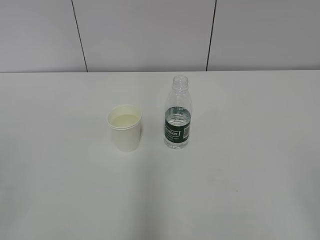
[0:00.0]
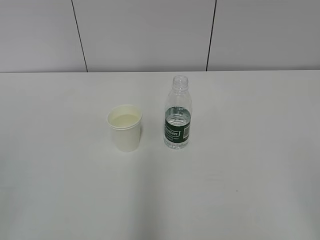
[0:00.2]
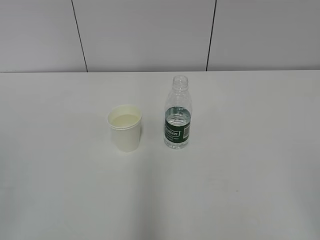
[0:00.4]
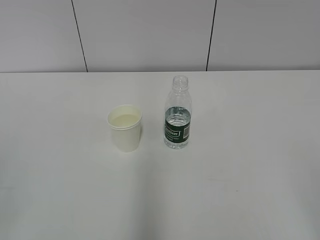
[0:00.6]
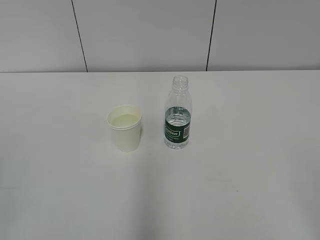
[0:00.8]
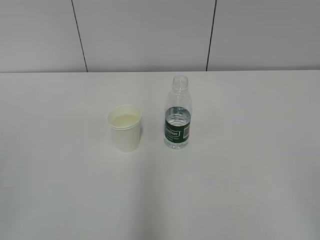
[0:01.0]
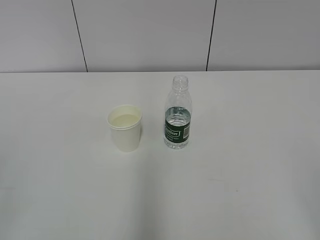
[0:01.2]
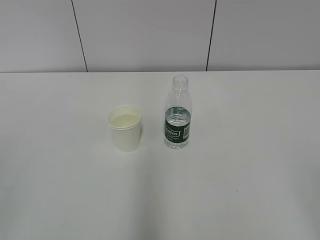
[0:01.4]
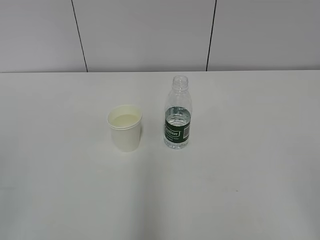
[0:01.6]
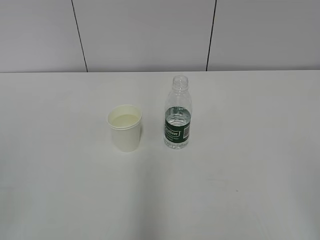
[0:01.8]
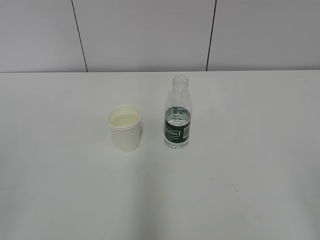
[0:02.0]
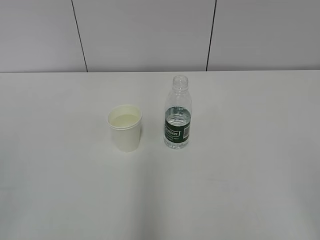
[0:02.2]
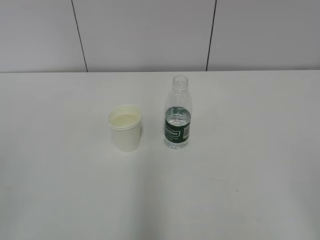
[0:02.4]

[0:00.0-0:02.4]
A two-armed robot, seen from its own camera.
0:00.0 to 0:02.4: Both grippers stay put.

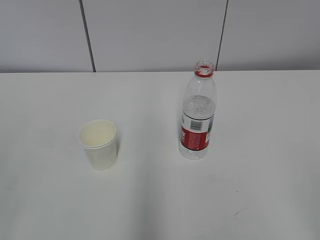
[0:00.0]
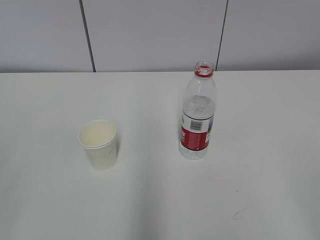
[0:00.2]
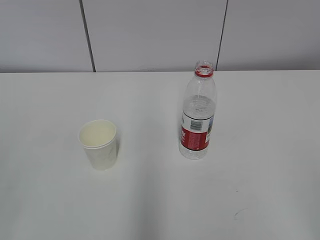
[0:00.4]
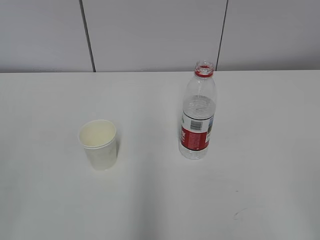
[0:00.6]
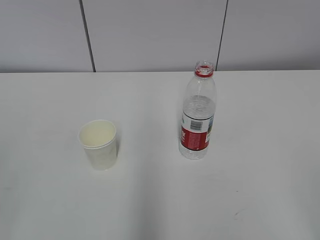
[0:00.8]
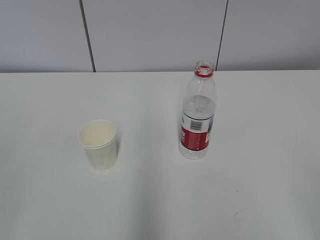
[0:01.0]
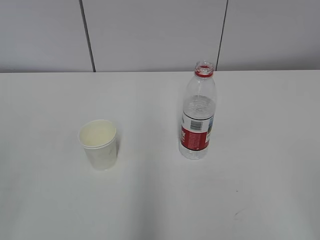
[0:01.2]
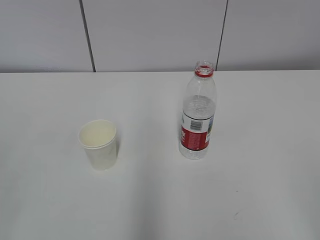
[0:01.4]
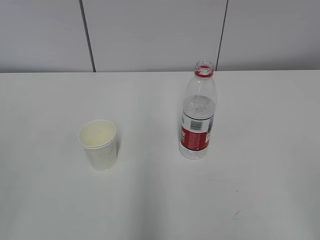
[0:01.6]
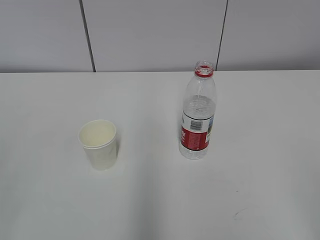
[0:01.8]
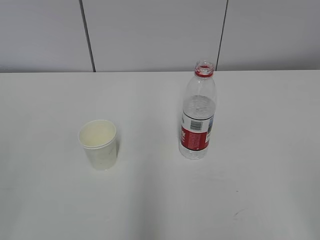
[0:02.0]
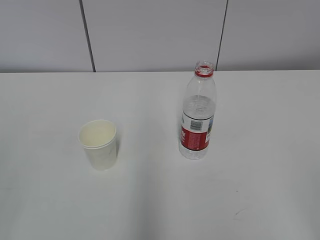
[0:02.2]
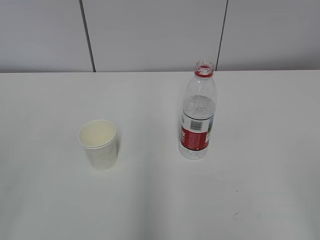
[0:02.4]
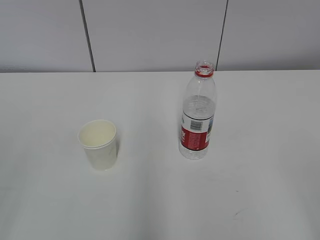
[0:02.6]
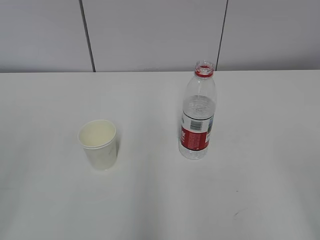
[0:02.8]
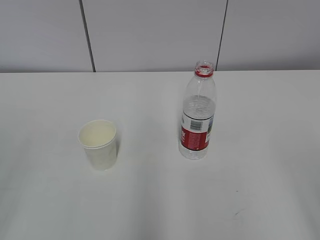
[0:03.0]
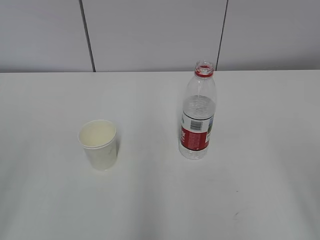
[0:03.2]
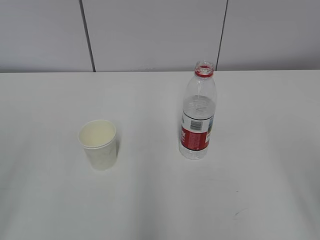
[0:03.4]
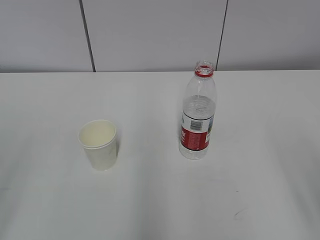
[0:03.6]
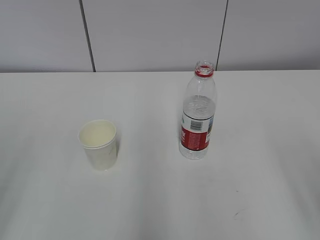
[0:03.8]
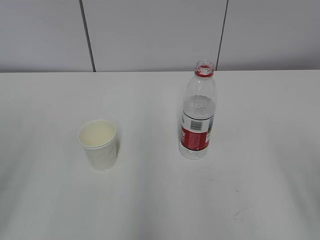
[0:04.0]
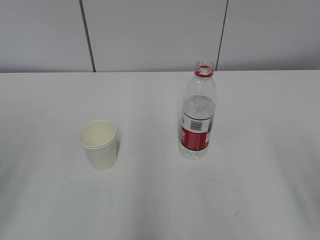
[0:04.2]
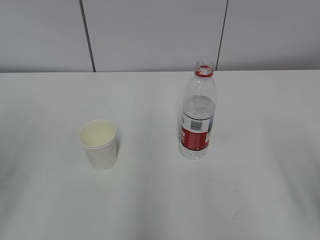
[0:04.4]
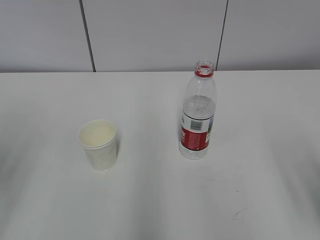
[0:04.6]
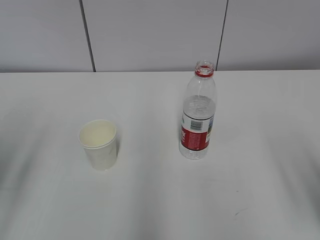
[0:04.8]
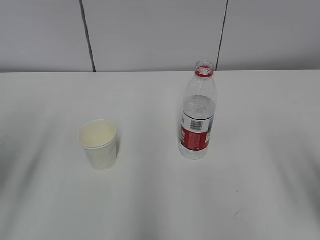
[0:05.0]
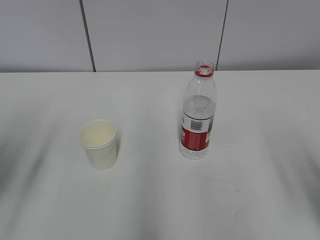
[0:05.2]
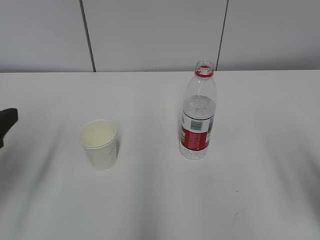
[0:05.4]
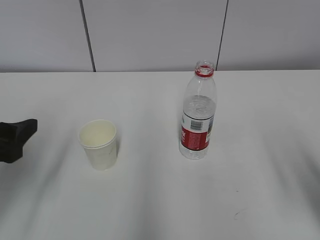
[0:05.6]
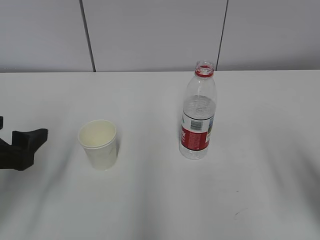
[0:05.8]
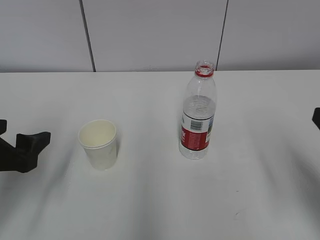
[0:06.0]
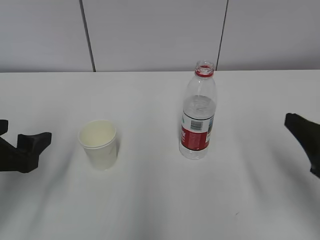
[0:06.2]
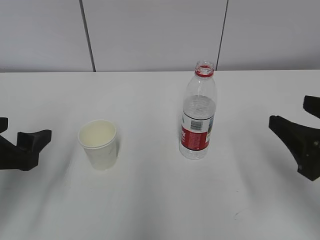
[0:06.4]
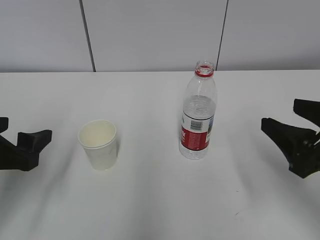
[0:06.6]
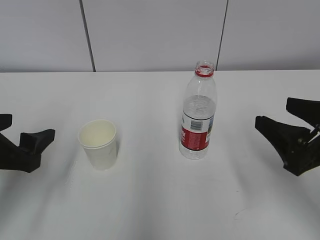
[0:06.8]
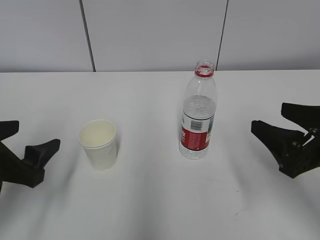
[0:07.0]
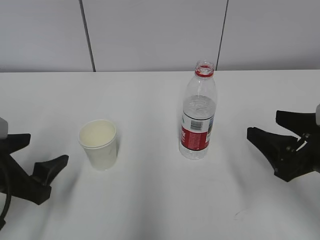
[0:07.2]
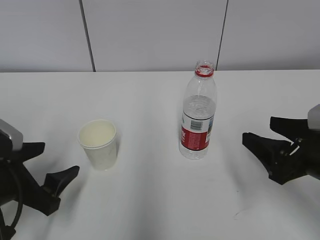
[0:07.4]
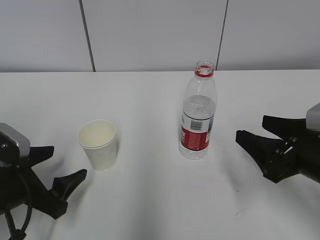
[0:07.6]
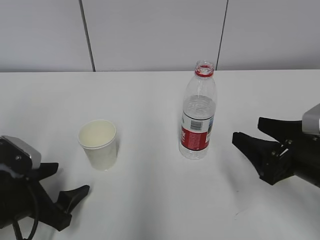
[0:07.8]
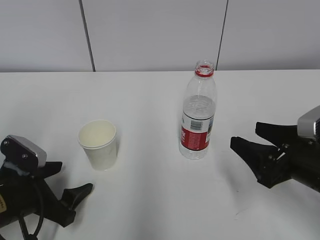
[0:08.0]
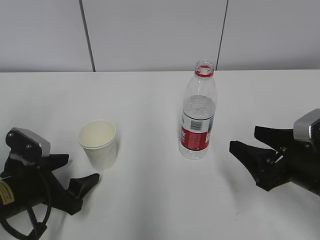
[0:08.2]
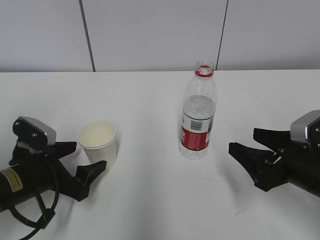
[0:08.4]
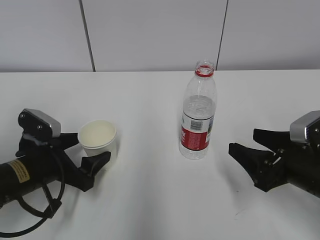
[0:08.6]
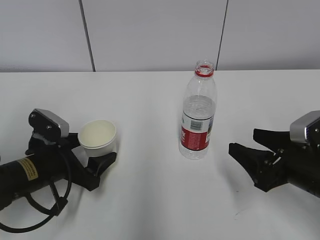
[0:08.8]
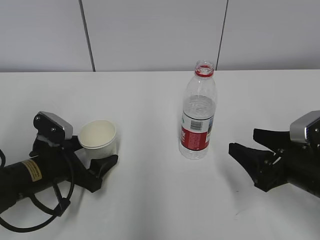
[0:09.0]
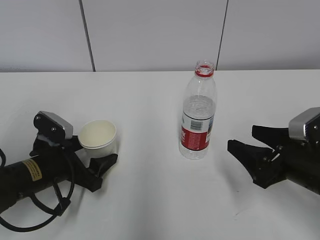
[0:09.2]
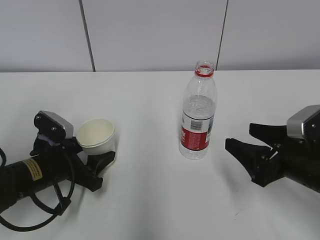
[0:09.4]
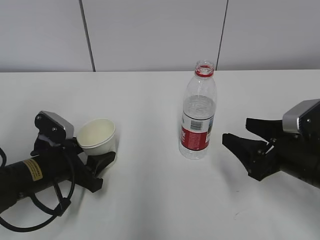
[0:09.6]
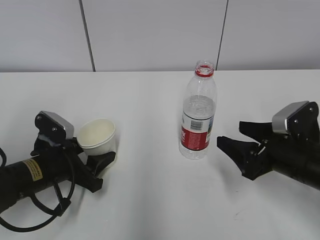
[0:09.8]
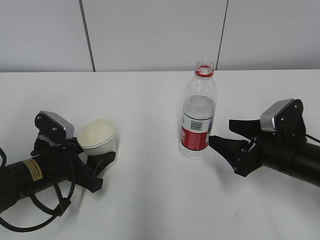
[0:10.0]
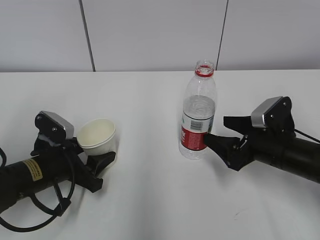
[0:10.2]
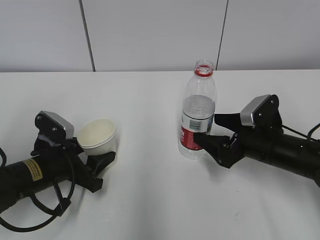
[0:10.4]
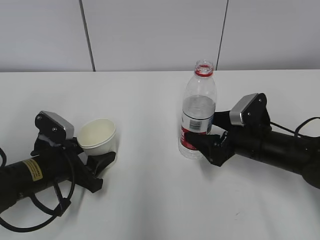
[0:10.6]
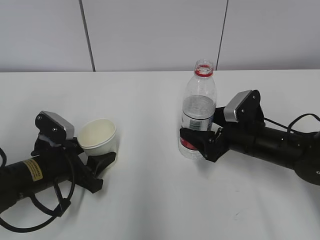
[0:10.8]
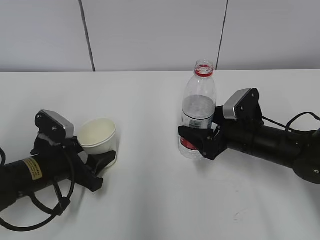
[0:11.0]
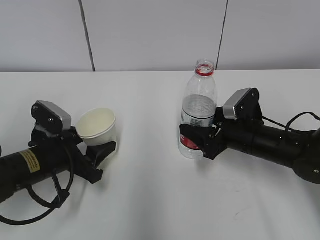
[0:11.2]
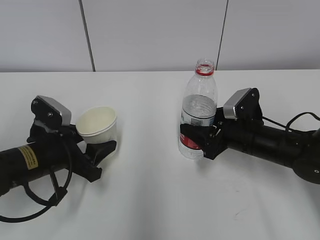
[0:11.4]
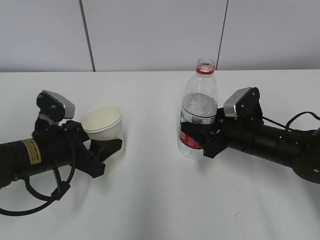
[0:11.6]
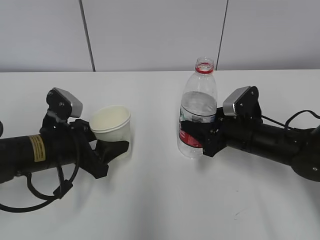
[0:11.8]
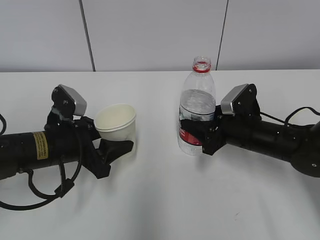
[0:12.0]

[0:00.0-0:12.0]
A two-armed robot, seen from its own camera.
Step, 0:00.0 to 0:07.8: Grab the paper cup with the left hand.
Step, 0:08.0 to 0:09.6: Grab the water bottle with the right hand.
0:04.4 to 0:06.0: The left gripper goes about 15 cm downward, forward and to the right, and opens up, while the right gripper moves forward, approximately 5 cm.
0:06.0 to 0:07.6: The right gripper moves downward and forward, about 10 cm. Meanwhile the left gripper moves downward, roughly 5 cm.
0:07.6 to 0:09.0: The left gripper heads forward, covering roughly 5 cm.
0:09.0 to 0:10.4: The left gripper closes its fingers. Meanwhile the right gripper moves forward, about 10 cm.
0:10.4 to 0:12.0: The left gripper shifts by about 5 cm. The right gripper closes up.

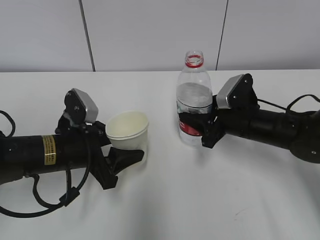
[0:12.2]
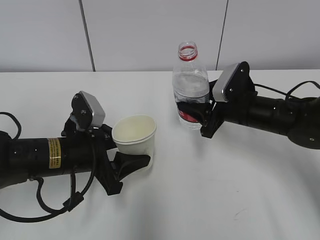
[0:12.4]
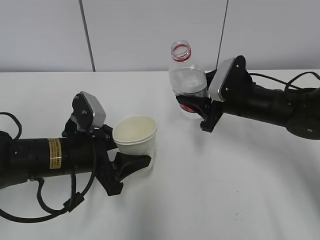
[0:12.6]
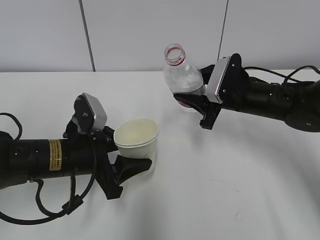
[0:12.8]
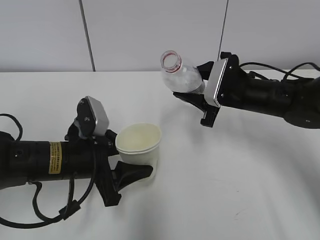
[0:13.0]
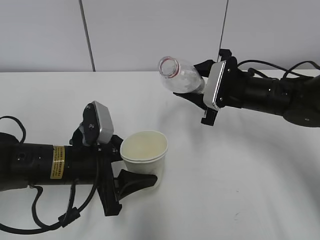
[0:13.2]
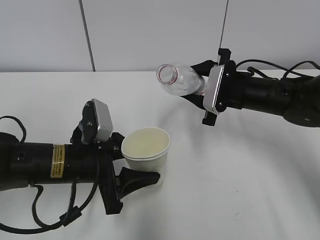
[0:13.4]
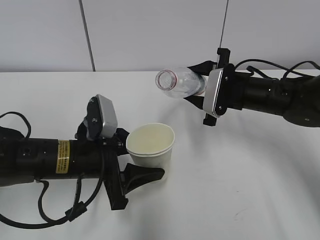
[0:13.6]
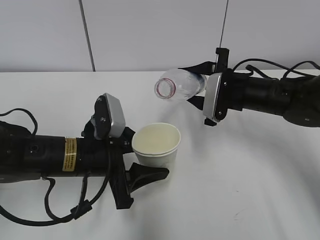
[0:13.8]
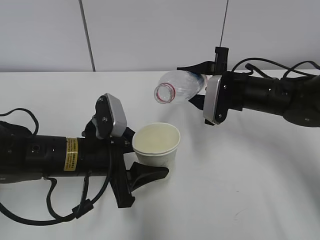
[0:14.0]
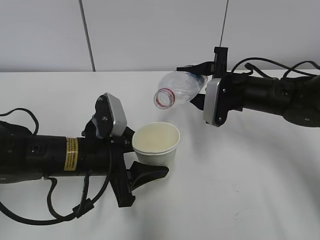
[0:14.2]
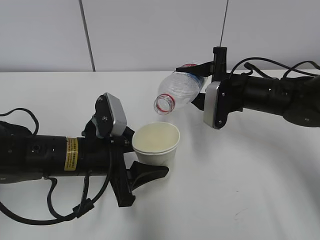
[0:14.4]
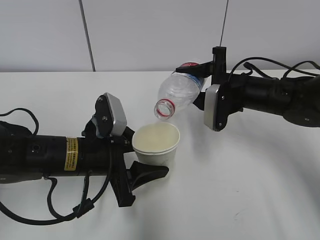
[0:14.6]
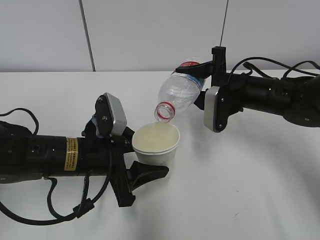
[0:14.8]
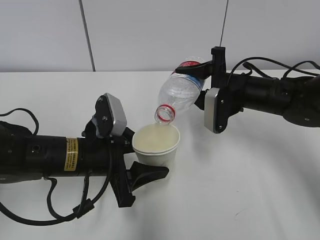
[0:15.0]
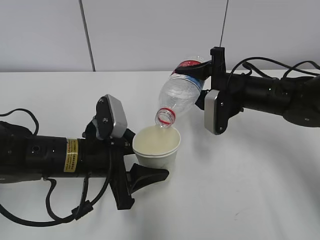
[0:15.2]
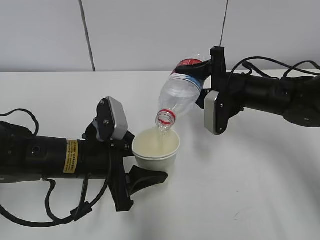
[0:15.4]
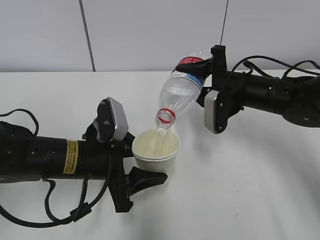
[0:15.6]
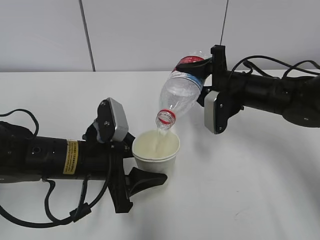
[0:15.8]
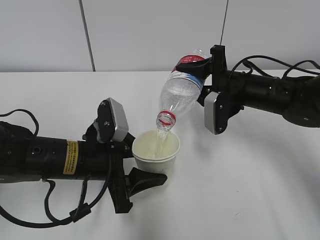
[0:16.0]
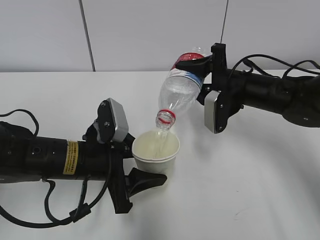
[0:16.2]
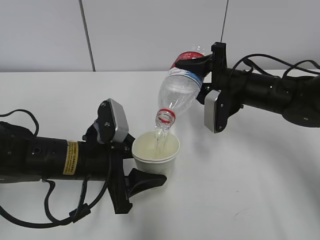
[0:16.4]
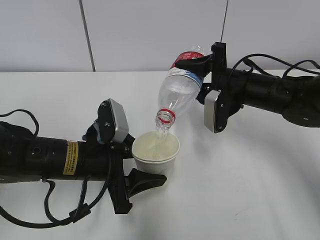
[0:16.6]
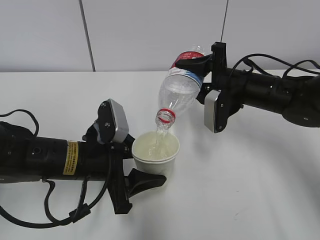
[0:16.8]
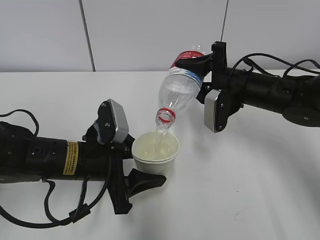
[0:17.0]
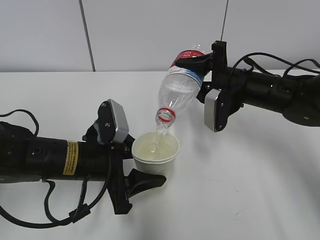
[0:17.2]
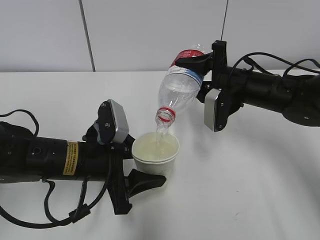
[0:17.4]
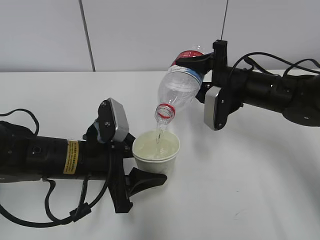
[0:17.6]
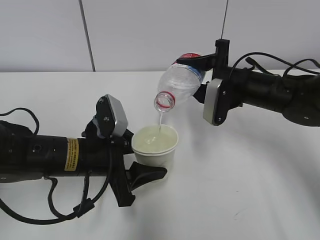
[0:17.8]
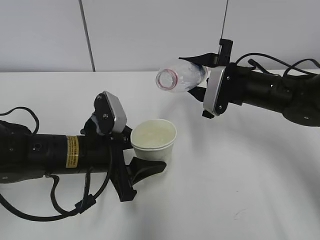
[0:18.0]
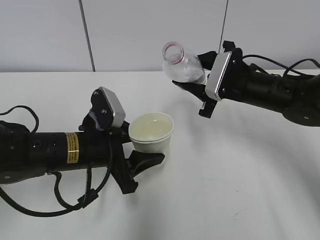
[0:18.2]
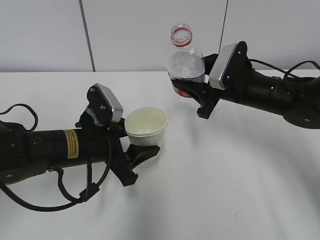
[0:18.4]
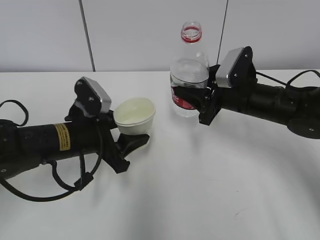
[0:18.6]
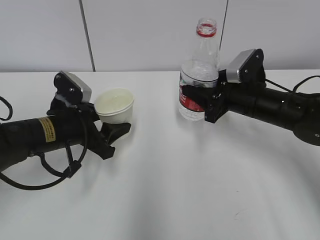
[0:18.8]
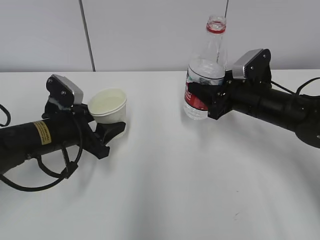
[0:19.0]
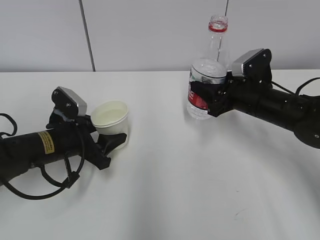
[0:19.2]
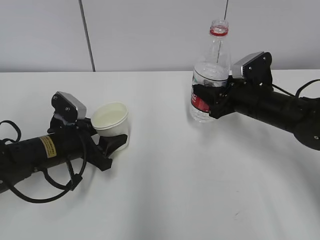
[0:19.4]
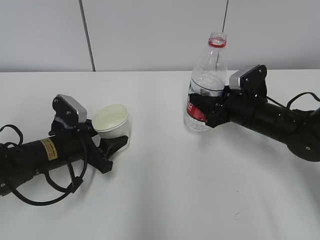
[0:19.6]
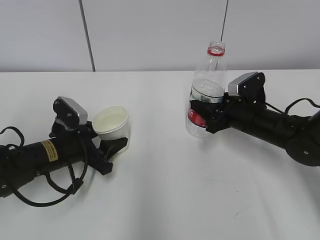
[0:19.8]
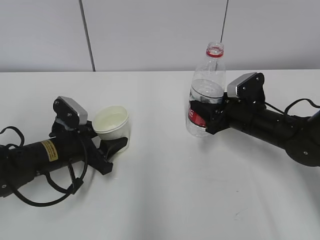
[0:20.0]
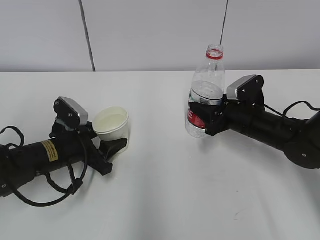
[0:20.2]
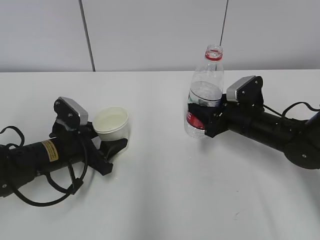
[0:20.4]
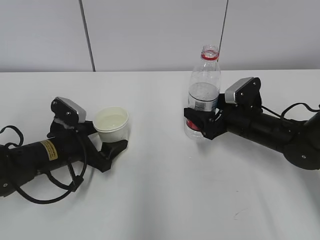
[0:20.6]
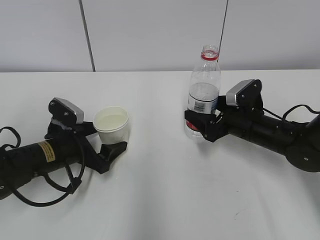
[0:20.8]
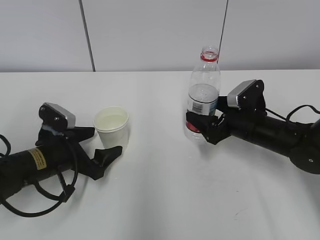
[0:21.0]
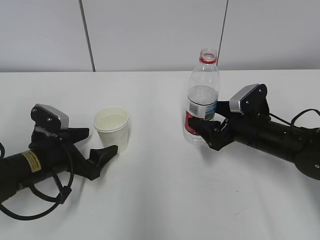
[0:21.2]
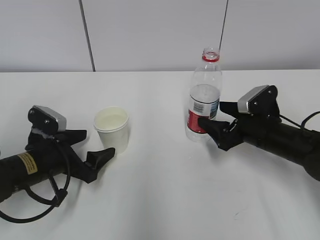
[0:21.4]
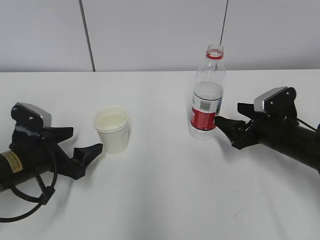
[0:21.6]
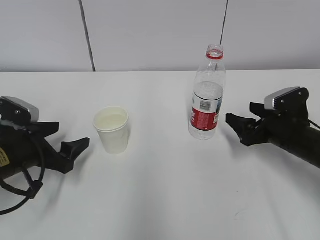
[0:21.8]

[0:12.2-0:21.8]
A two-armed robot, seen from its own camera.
Step, 0:12.8 to 0:14.8: Fill water with the left hand.
Step, 0:12.8 to 0:14.8: Pour water with the right hand.
Step, 0:15.6 to 0:17.0: Place the paper cup with the left hand.
0:12.2 to 0:13.8: The right gripper ends up approximately 5 cm from where it was.
0:15.4 to 0:17.0: The grippers make only small movements.
0:18.6 to 0:20.2: Both grippers move downward, about 5 cm.
0:20.2 to 0:21.8: The right gripper travels to the right by roughly 5 cm, and opens up. Meanwhile the left gripper travels to the left by approximately 5 cm, and opens its fingers.
